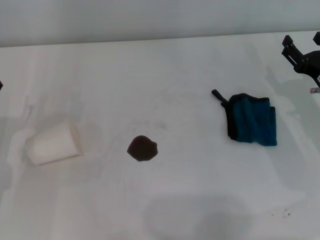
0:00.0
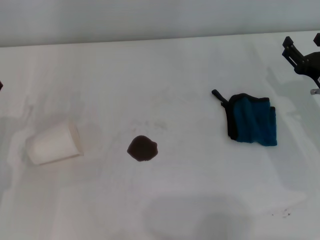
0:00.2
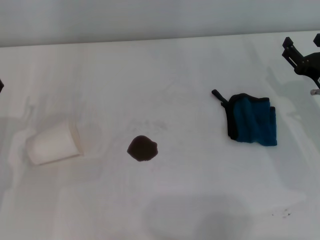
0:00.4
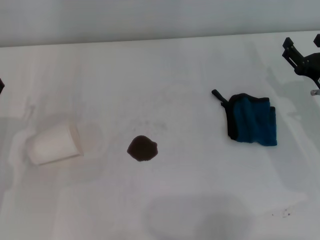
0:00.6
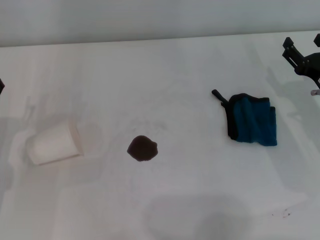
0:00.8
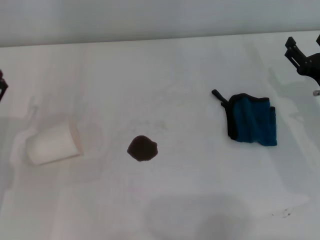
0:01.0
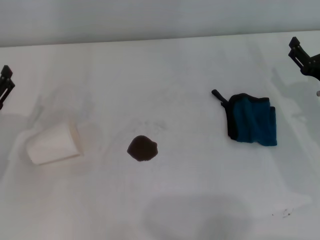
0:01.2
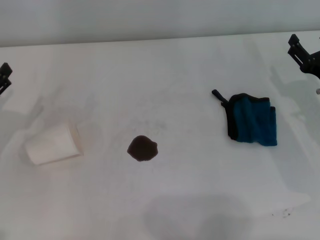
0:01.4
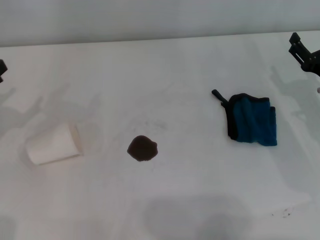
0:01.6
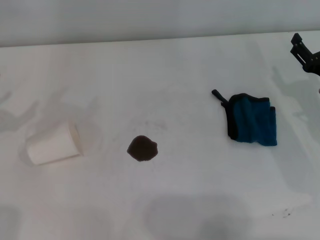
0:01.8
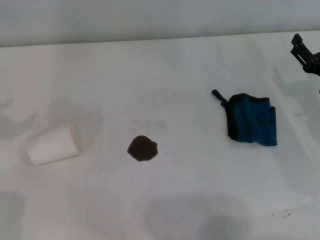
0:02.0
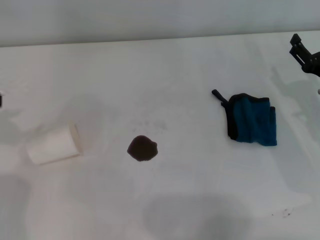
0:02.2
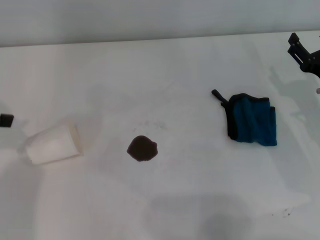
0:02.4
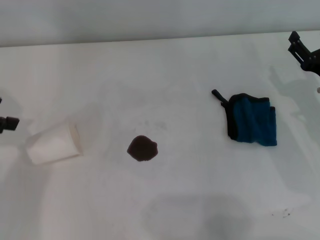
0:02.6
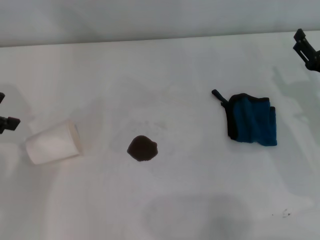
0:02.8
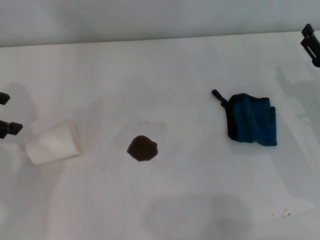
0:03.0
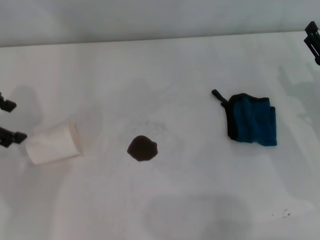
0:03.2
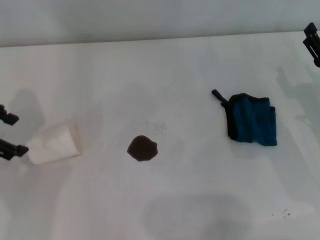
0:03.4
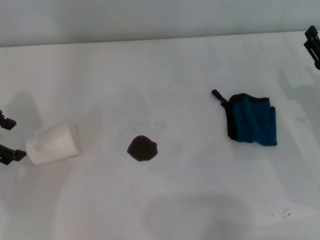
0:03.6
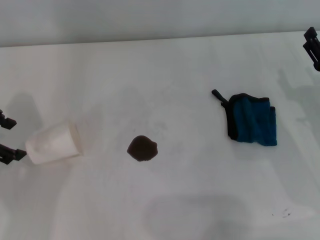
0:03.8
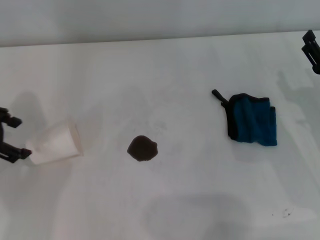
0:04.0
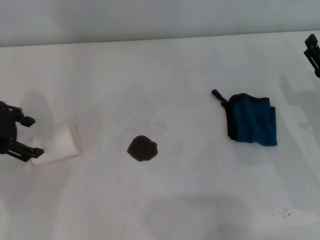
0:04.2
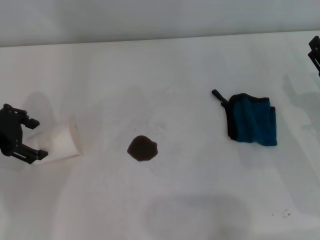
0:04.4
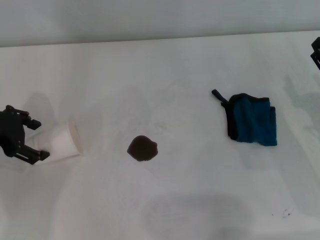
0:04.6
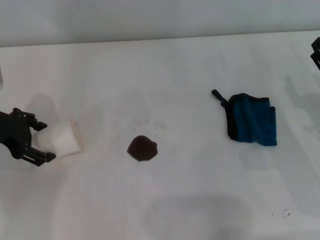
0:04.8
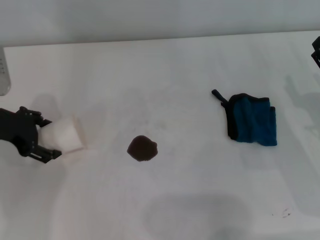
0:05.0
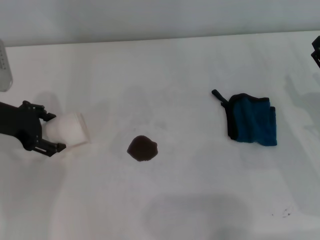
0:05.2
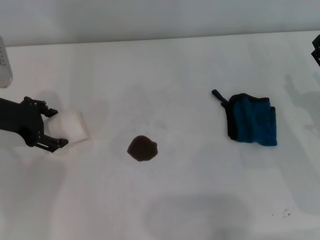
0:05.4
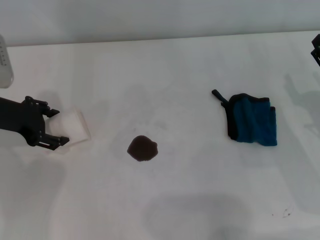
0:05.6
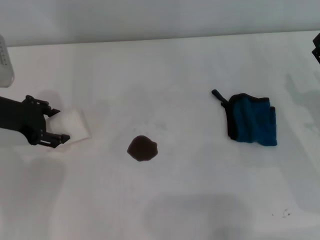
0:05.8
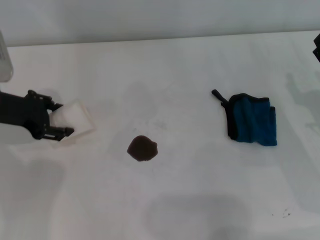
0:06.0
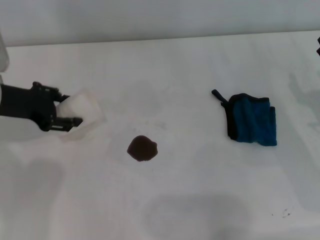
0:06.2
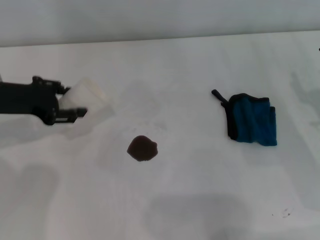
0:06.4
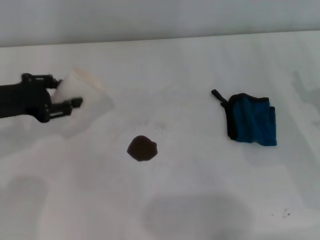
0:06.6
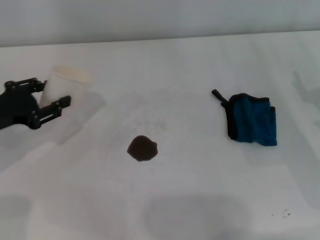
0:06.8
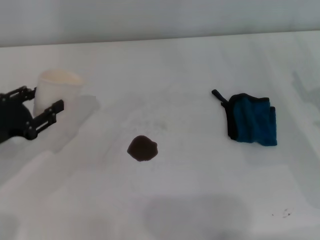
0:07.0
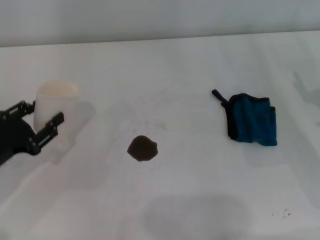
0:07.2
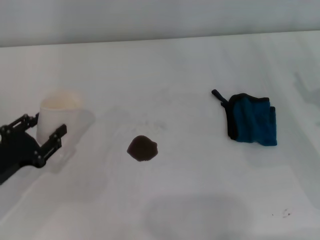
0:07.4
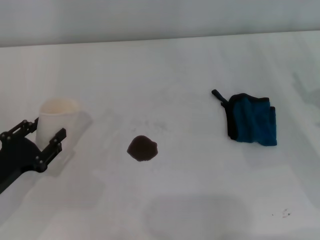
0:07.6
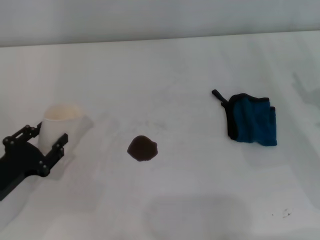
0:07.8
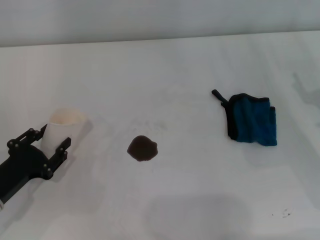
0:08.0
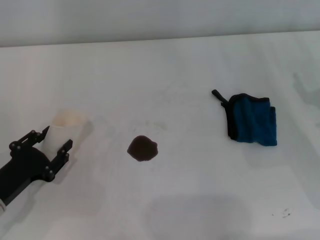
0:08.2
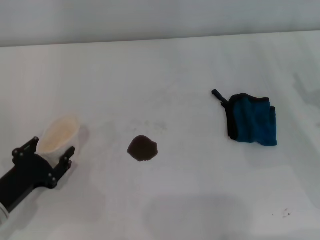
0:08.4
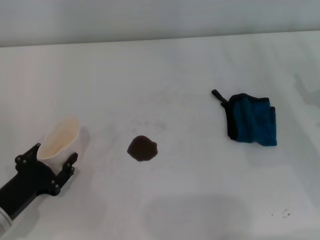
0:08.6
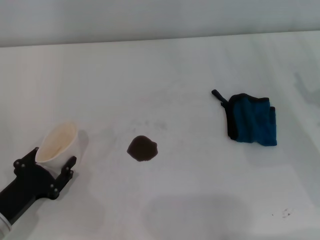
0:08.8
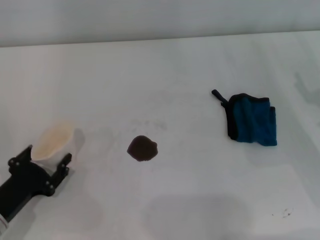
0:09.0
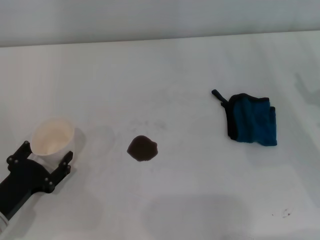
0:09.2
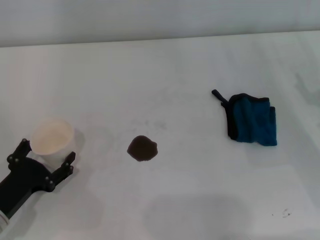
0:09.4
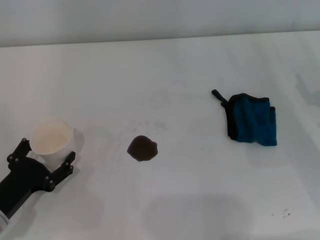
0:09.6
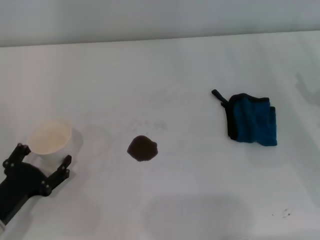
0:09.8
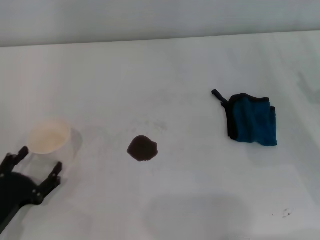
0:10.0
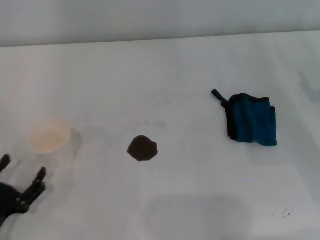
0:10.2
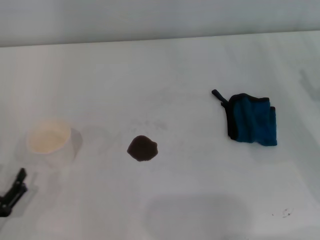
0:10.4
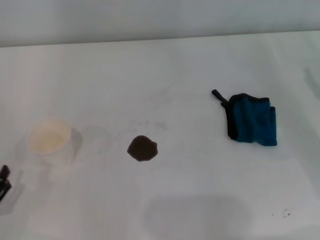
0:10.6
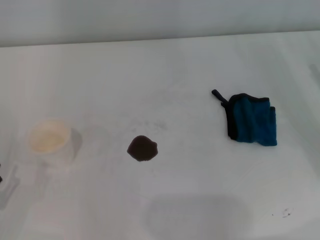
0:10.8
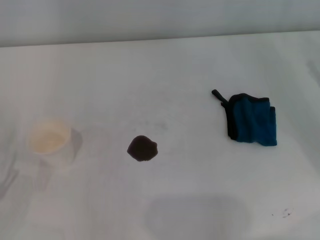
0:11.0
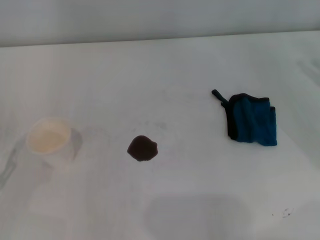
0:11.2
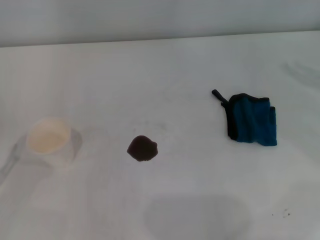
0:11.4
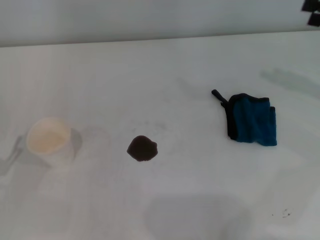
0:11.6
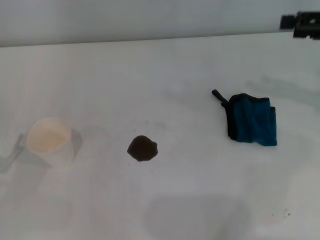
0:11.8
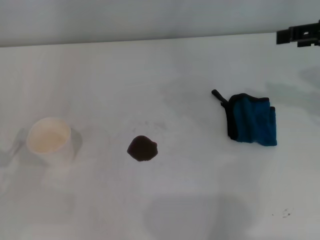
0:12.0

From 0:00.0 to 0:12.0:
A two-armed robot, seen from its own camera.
Step, from 0:00.0 to 0:05.8: Grasp the paper cup with the left gripper.
Step, from 0:06.0 to 0:09.6: Stand the paper cup upright with the left gripper.
From 0:01.6 to 0:03.0: The left gripper is displaced upward and forward by approximately 15 cm.
From 0:03.0 to 0:04.4: The left gripper shifts about 5 cm downward.
From 0:04.4 to 0:06.0: The left gripper closes its fingers.
From 0:06.0 to 0:07.6: The left gripper travels backward and downward by about 20 cm, and closes.
From 0:07.6 to 0:09.0: The grippers move only a little.
From 0:09.0 to 0:10.4: The left gripper moves backward, some 5 cm, and opens up.
From 0:10.4 to 0:12.0: The right gripper heads upward, covering roughly 20 cm. Meanwhile the left gripper shifts approximately 5 cm forward.

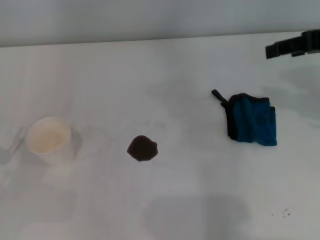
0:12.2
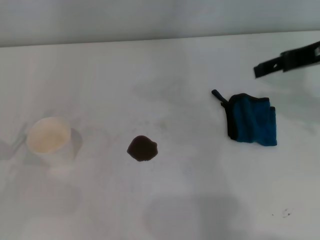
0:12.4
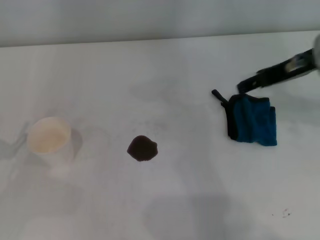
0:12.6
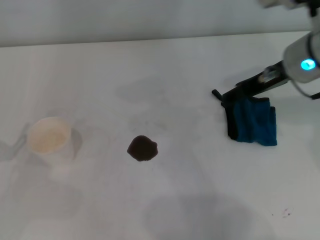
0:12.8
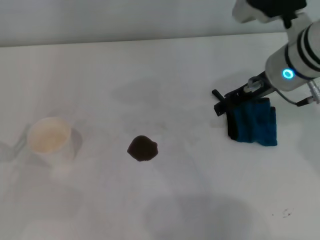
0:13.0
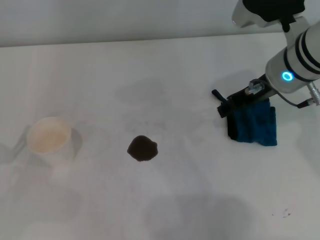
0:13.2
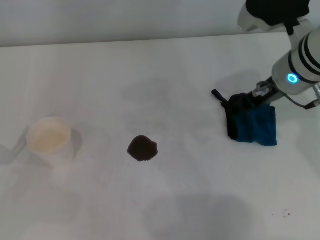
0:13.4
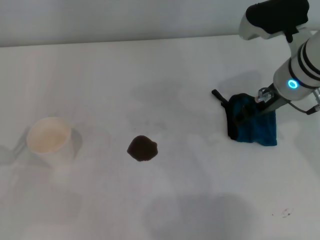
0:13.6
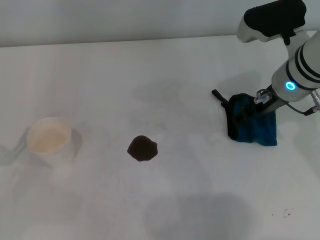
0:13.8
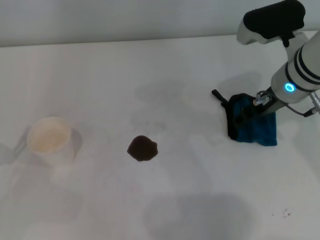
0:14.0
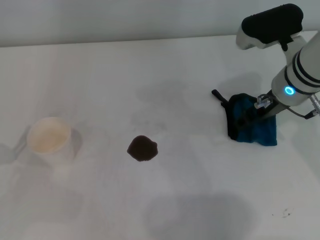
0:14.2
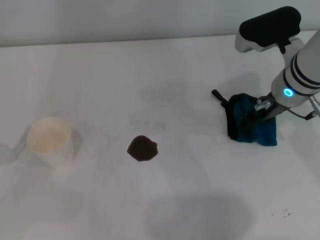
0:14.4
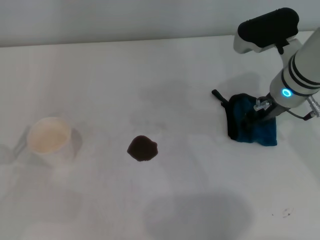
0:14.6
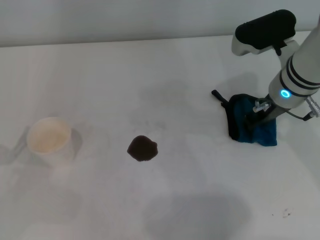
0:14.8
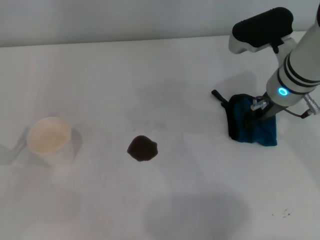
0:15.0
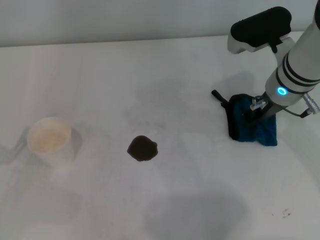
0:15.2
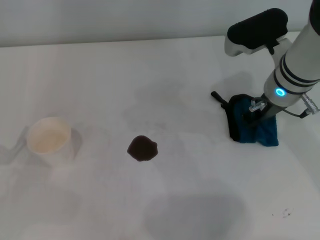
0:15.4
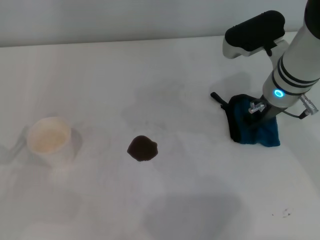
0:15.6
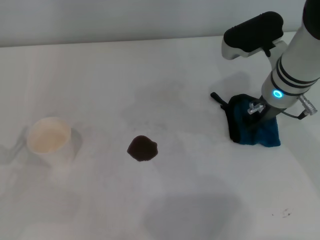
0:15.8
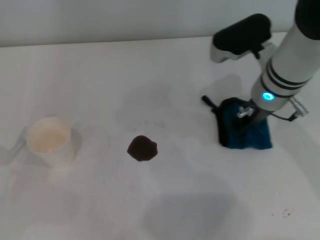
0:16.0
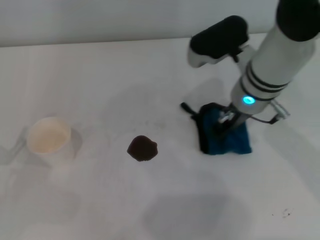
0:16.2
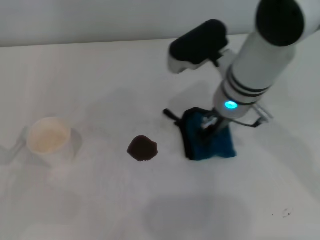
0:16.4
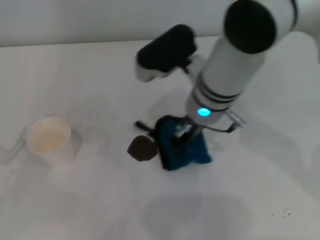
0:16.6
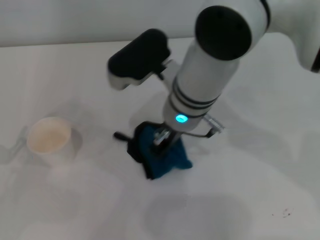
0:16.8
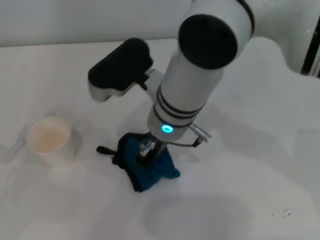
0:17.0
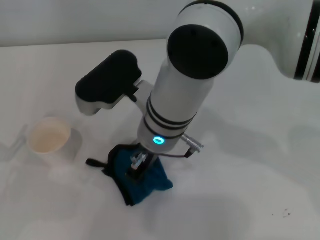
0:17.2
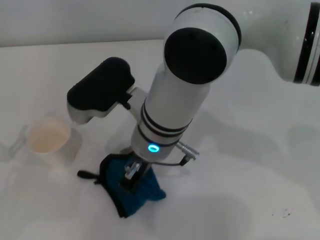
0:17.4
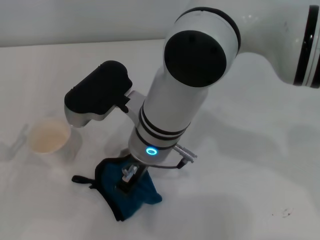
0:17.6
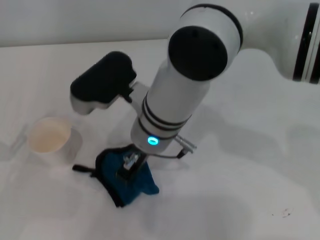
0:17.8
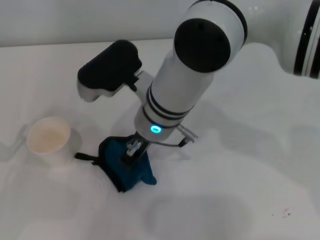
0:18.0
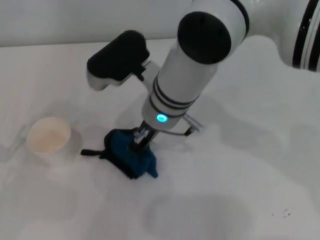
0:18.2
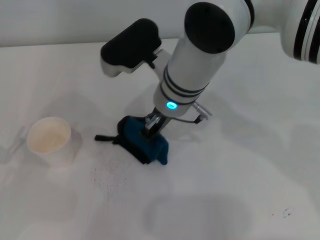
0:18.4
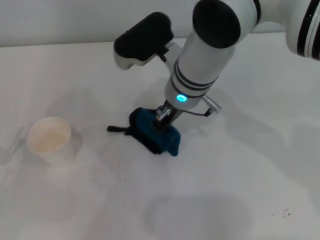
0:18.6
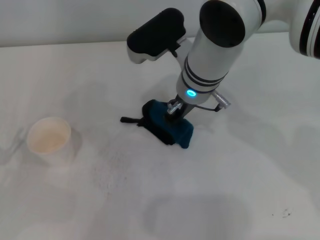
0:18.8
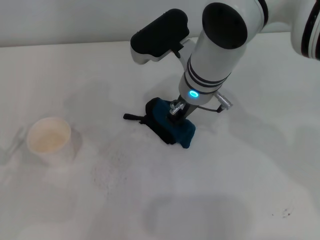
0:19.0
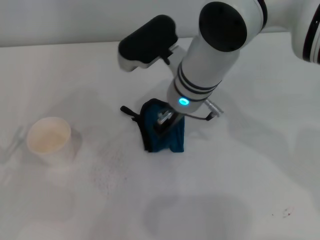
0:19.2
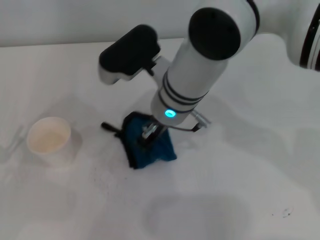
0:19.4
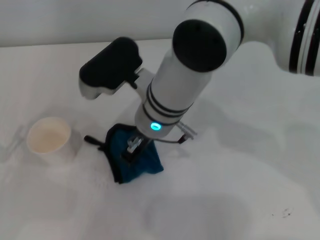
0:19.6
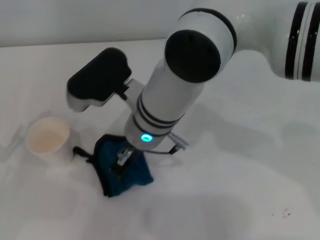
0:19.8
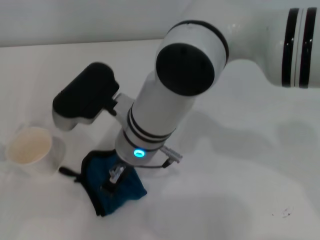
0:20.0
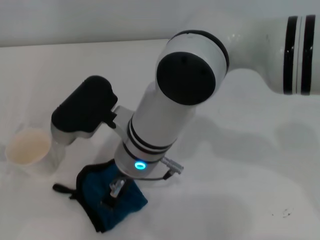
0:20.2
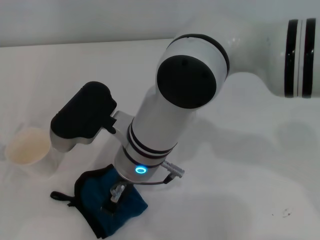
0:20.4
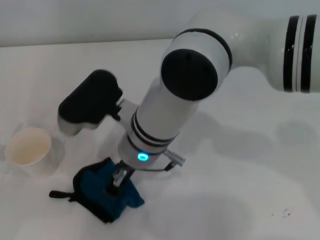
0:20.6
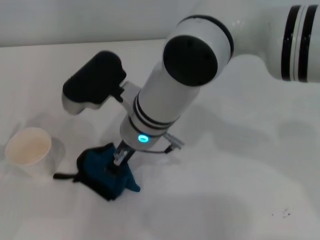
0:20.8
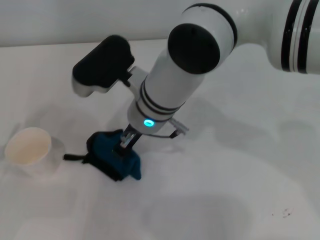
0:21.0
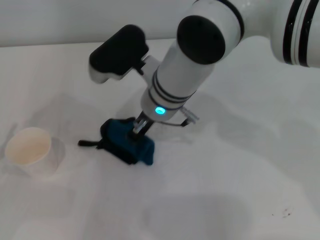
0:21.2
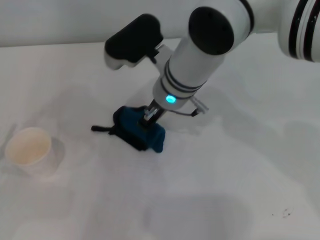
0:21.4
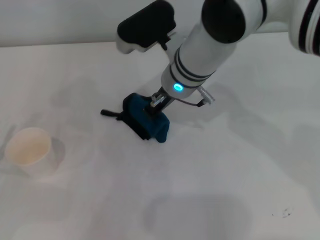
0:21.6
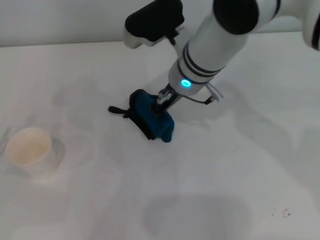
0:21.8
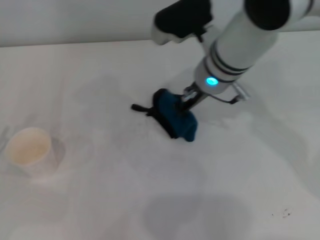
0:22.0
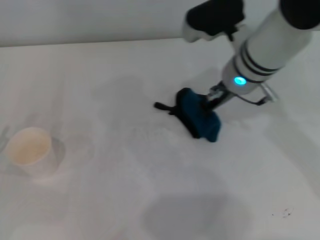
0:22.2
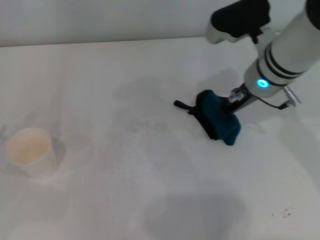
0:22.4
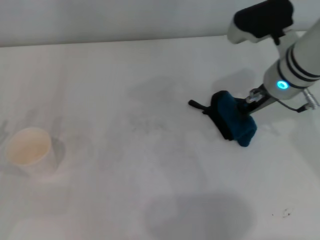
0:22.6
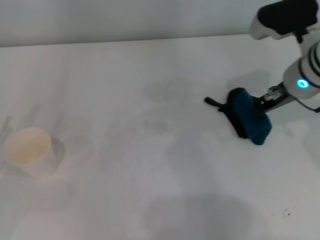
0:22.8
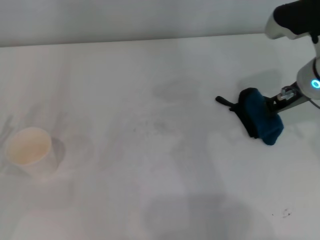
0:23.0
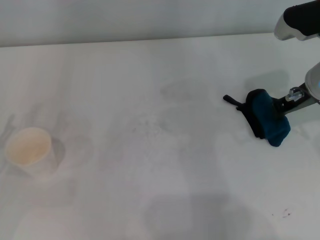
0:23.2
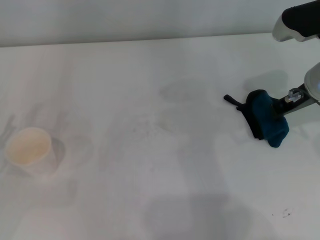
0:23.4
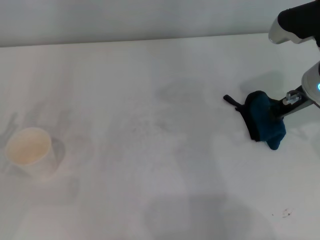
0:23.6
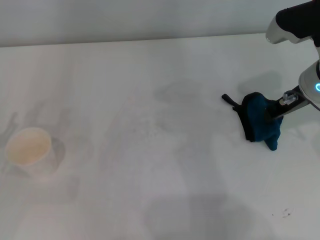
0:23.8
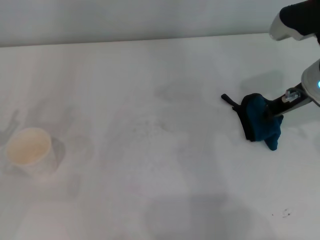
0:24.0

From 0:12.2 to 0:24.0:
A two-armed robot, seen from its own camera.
Step, from 0:12.2 to 0:15.6: Grasp the rag with the right gripper.
Step, from 0:15.8 to 0:23.0: Wipe the stains off the table with the right gripper.
Step, from 0:23.4 to 0:23.8: Place the rag on the table with the right gripper.
From 0:12.2 to 0:13.6: The right gripper moves downward and to the left, approximately 15 cm.
From 0:13.6 to 0:15.2: The right gripper closes up.
From 0:15.2 to 0:16.6: The right gripper heads to the left, covering approximately 15 cm.
From 0:16.6 to 0:18.2: The right gripper is displaced to the left by about 5 cm.
From 0:19.6 to 0:21.0: The grippers make only small movements.
From 0:21.0 to 0:22.6: The right gripper heads to the right, covering approximately 20 cm.
From 0:22.6 to 0:24.0: The right gripper travels to the right by about 5 cm.
